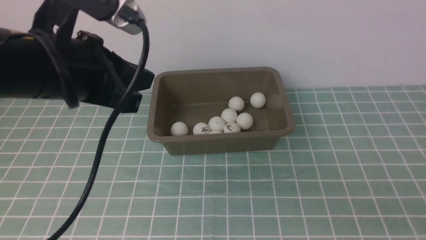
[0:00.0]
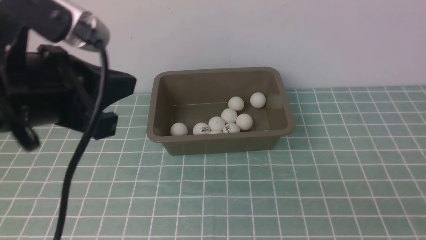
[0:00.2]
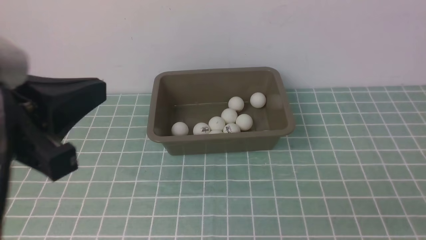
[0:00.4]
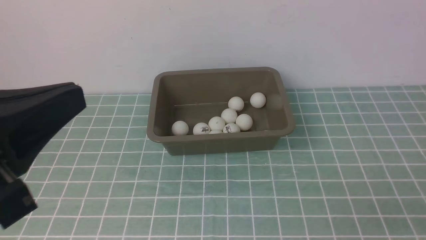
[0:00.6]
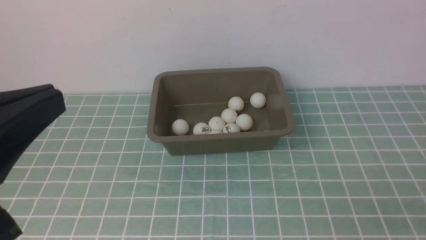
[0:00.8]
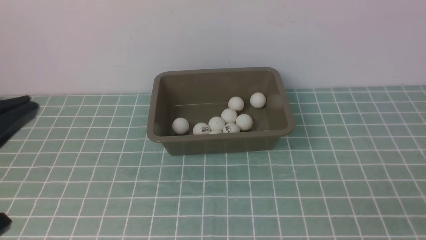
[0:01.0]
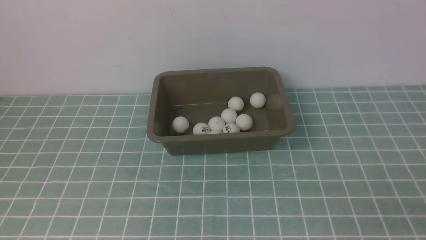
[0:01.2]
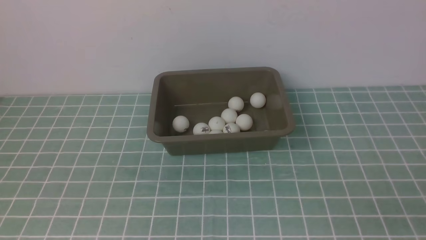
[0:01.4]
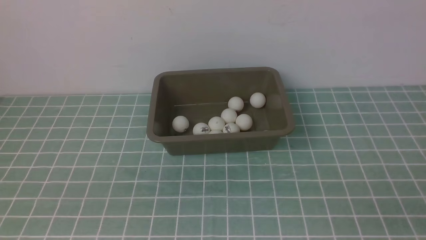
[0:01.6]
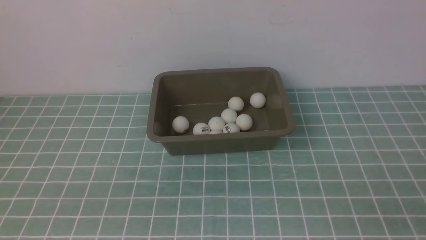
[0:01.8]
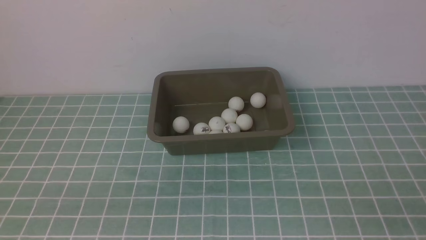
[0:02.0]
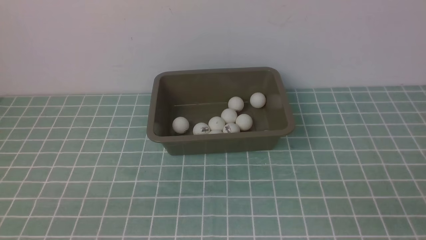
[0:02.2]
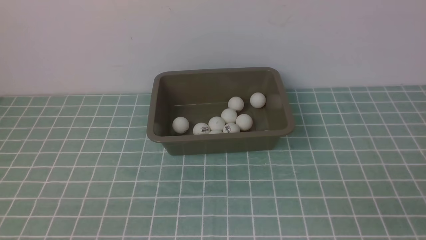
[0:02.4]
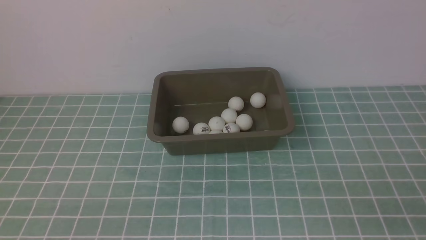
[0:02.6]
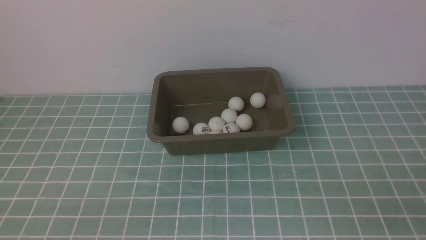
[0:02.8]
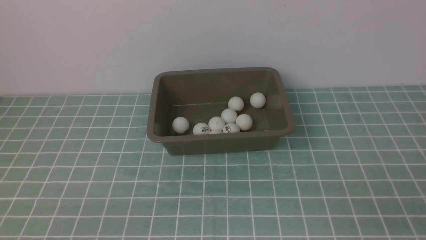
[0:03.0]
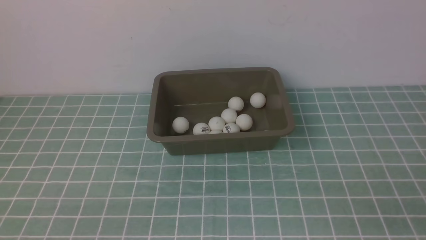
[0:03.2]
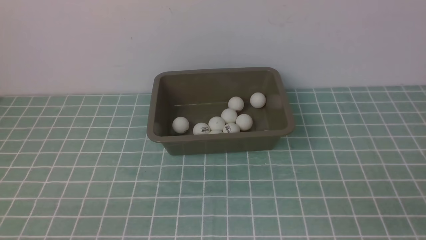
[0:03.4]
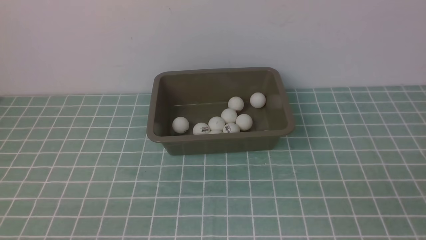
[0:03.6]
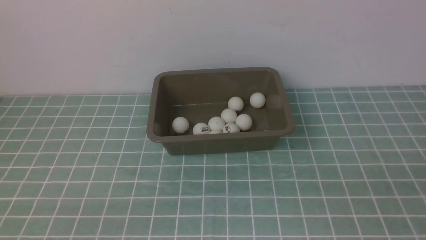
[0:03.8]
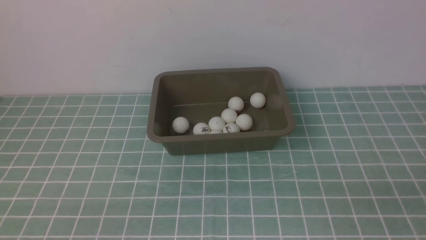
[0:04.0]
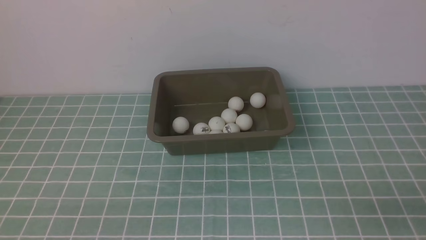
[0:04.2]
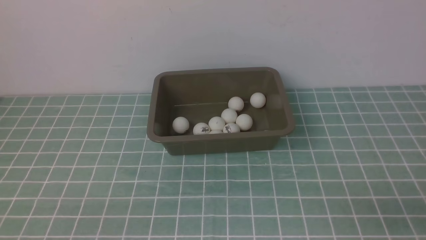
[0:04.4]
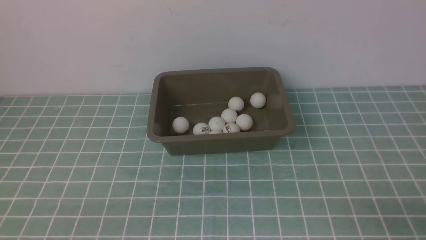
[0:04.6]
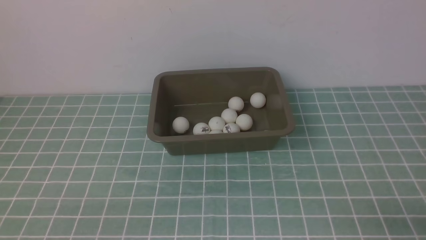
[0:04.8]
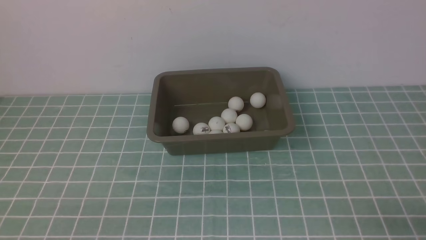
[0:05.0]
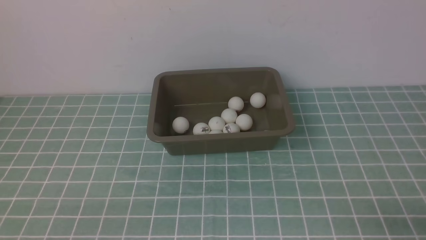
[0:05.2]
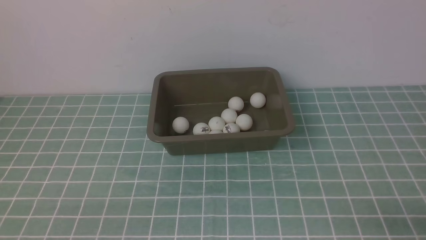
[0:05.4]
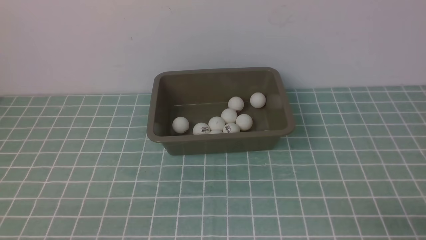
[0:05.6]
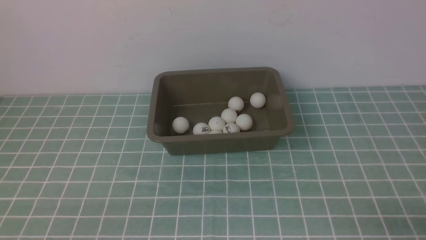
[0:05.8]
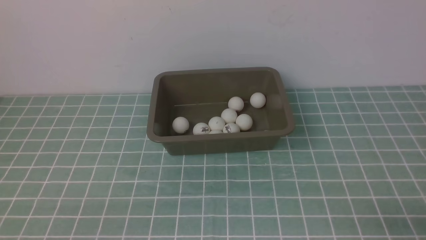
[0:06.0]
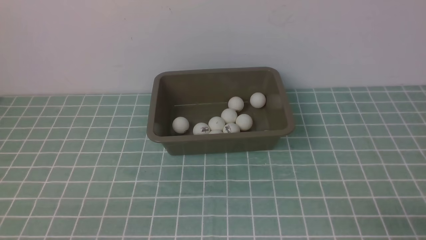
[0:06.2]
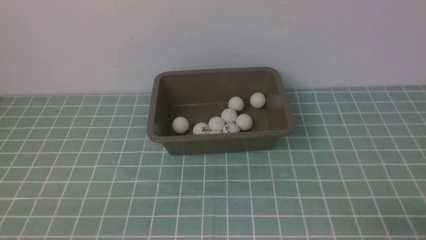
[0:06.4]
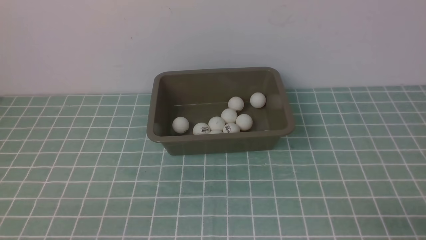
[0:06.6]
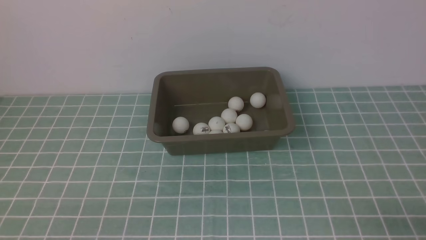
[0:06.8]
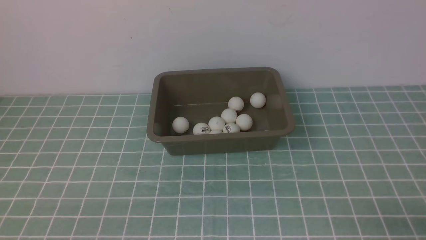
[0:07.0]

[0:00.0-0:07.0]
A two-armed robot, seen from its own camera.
0:00.0 to 0:01.4: The left gripper goes approximately 20 cm backward and to the left.
0:05.6 to 0:07.0: The two grippers keep their place.

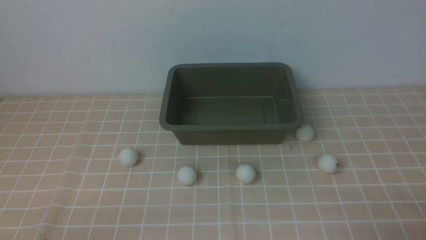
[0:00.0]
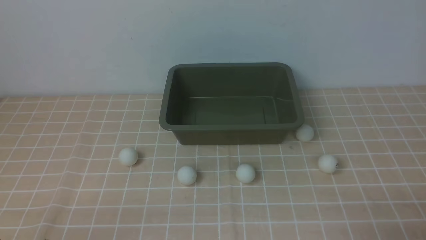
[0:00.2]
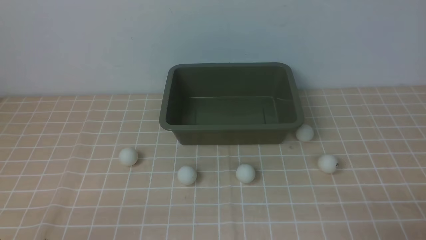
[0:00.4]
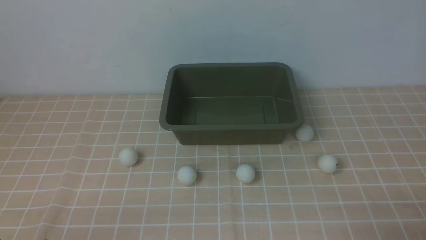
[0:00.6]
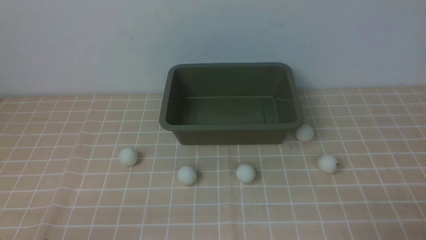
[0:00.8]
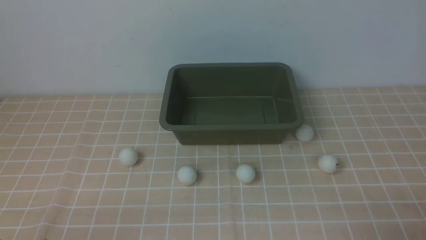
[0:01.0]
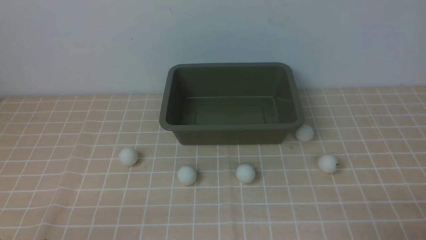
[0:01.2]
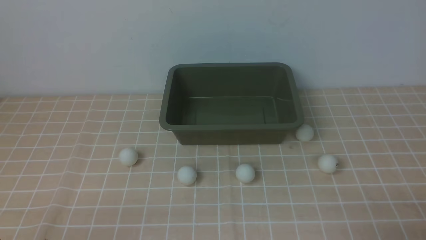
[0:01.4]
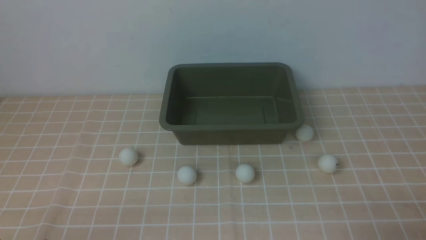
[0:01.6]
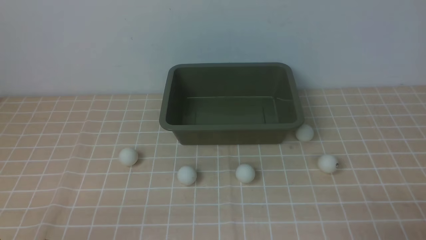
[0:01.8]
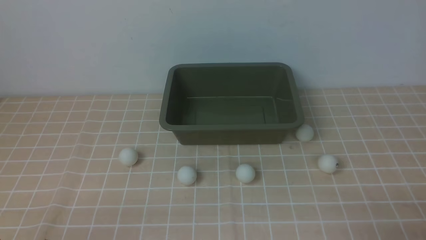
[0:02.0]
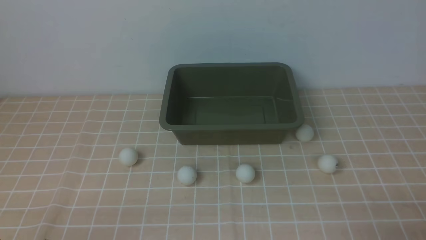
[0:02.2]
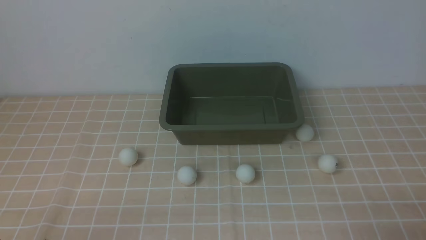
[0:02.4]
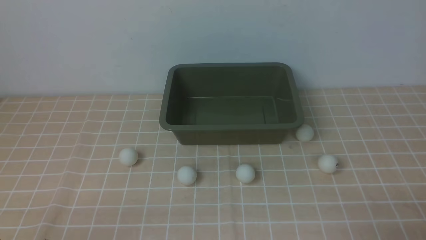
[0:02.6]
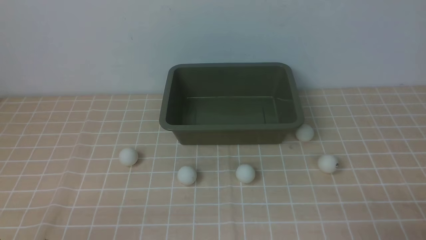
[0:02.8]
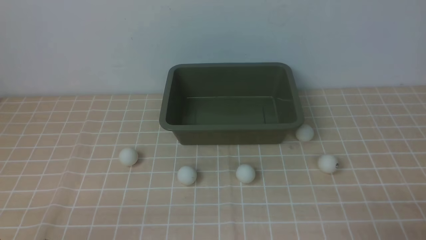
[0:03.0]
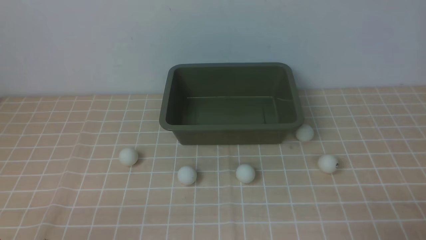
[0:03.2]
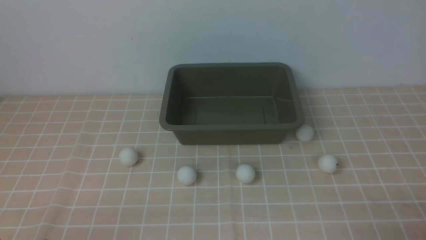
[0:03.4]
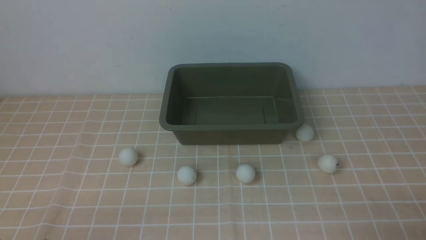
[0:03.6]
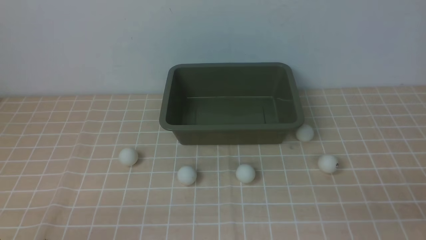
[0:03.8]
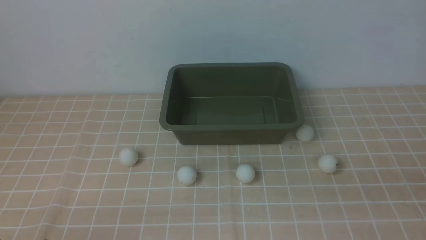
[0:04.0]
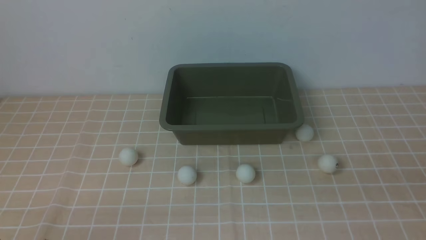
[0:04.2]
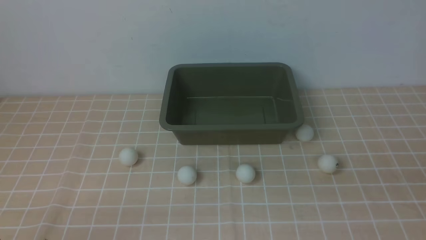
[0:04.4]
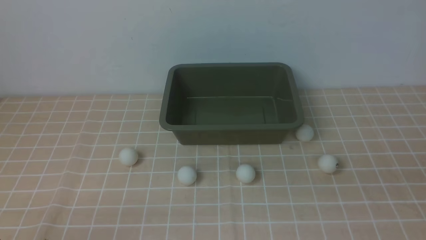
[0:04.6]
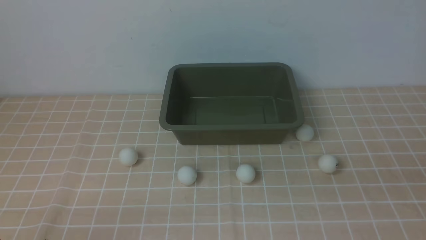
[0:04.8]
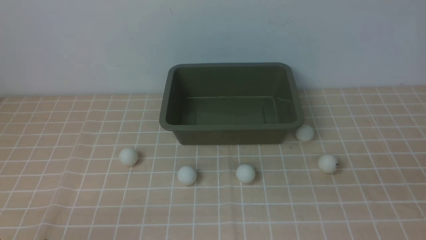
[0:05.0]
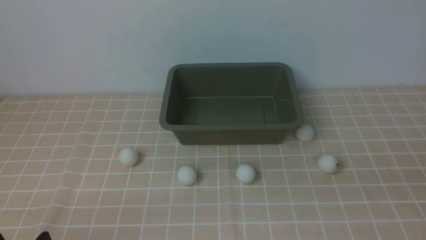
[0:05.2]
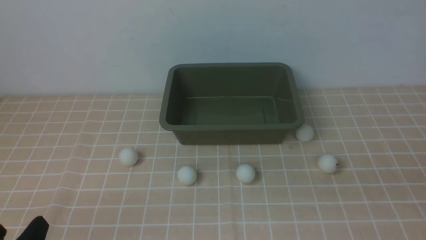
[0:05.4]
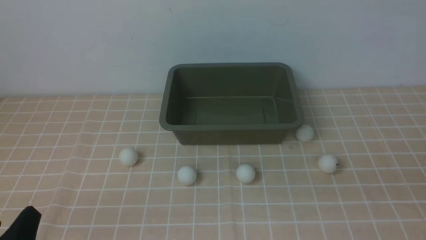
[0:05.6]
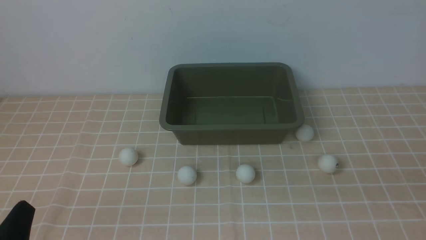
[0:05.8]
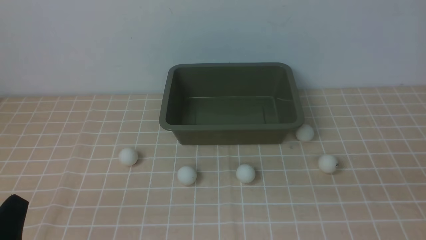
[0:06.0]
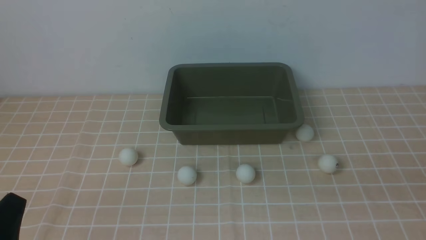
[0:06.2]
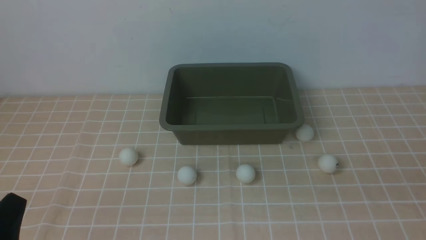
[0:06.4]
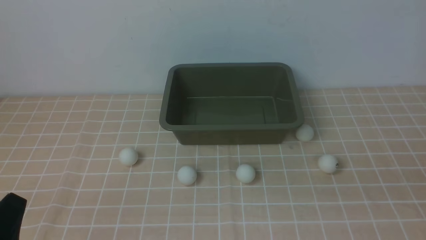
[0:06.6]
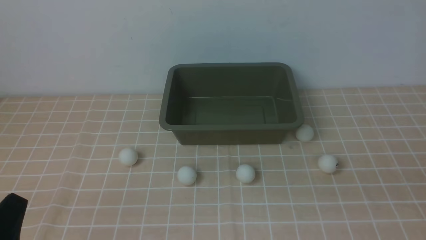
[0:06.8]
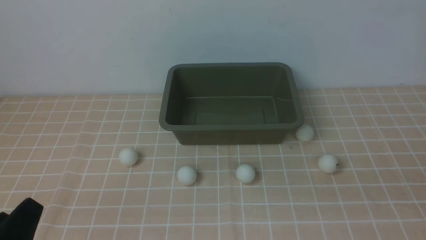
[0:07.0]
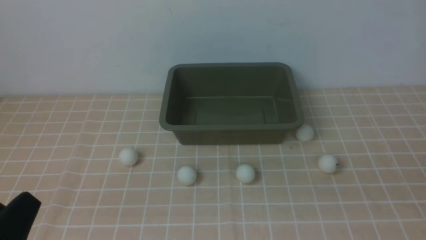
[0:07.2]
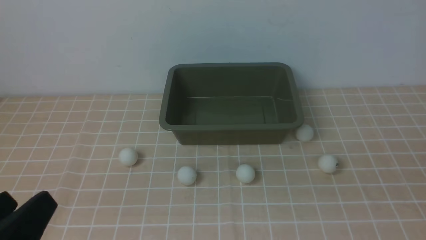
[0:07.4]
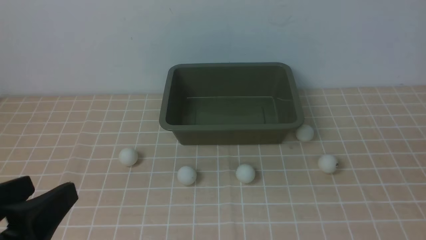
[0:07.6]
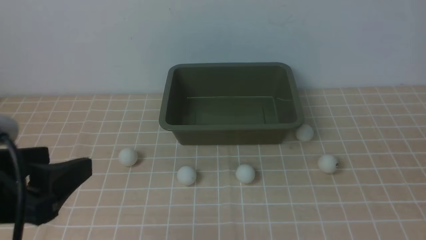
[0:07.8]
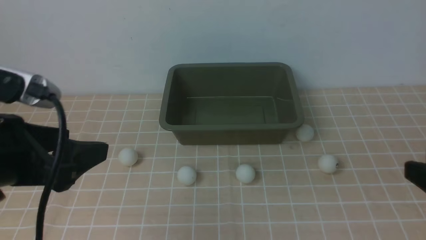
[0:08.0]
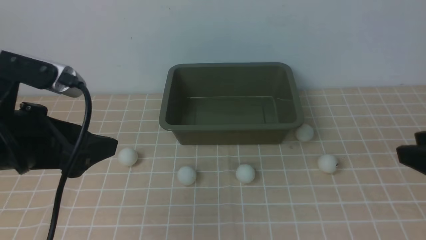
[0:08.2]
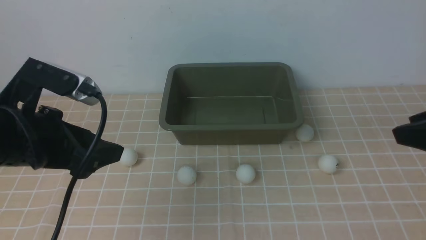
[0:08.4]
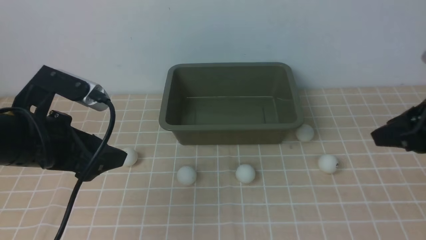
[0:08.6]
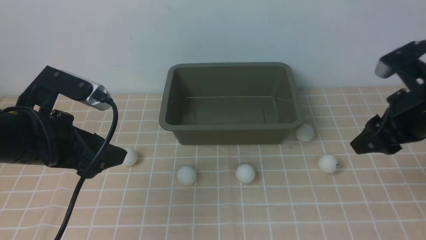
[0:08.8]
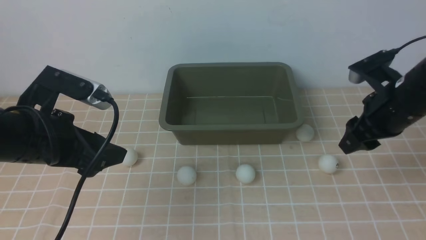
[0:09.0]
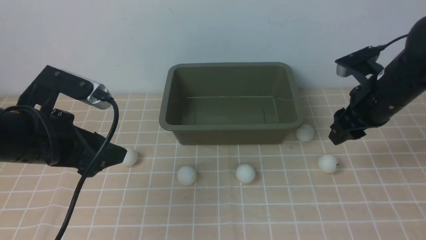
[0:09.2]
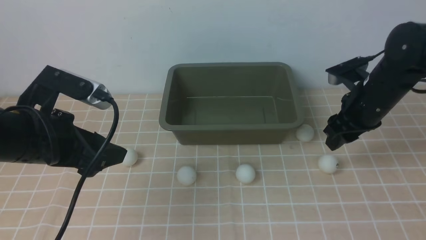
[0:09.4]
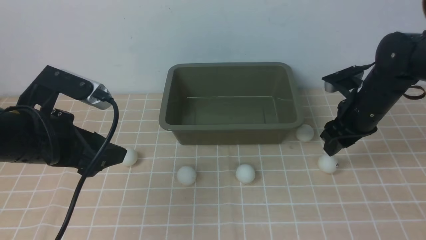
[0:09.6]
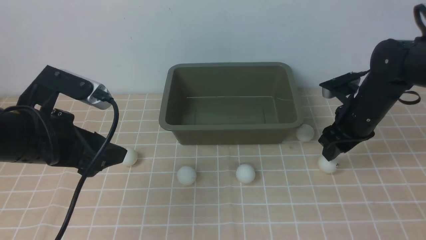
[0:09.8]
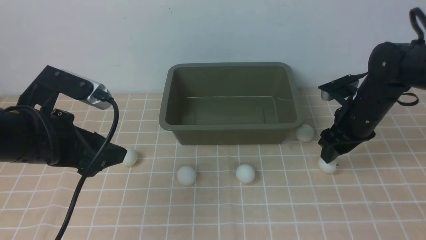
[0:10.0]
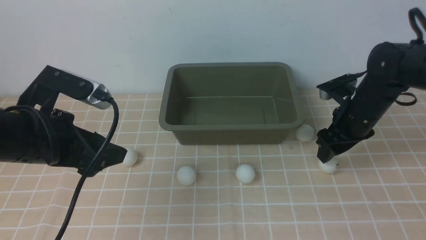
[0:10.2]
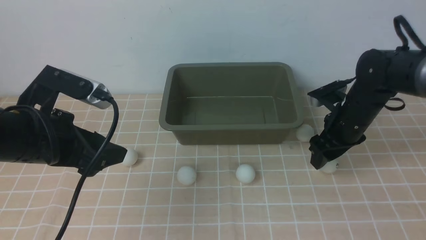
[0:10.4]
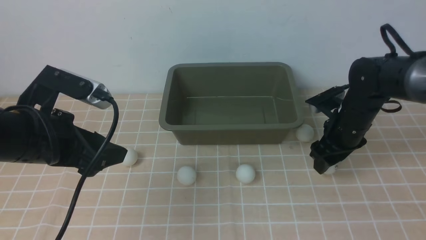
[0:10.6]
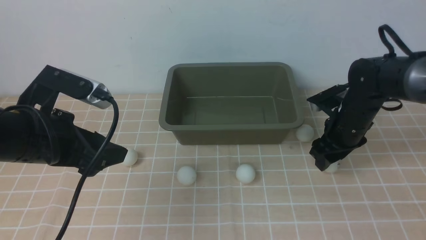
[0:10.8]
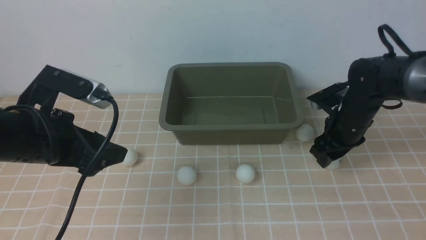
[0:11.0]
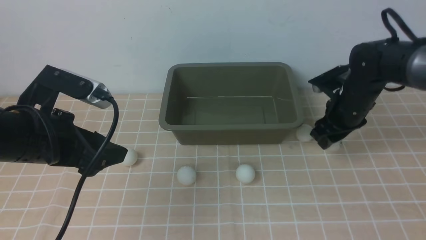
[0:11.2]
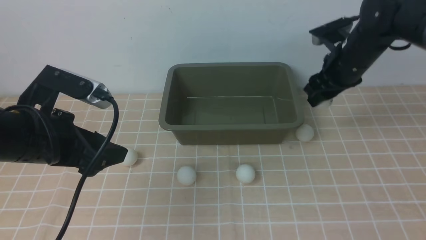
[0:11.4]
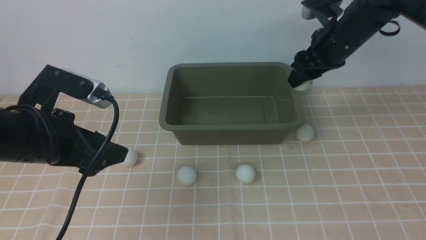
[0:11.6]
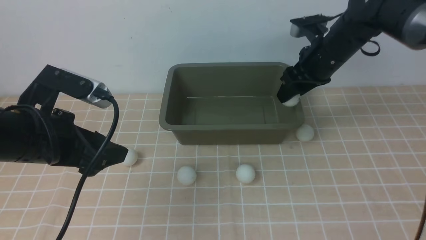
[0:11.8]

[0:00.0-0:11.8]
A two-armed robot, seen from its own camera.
Step, 0:00.0 to 0:11.2: use the right arm to clamp the table tennis ball closest to it.
0:00.0 to 0:03.0: Both grippers stay put.
0:06.0 to 0:07.4: The left gripper travels upward by approximately 10 cm.
0:07.4 to 0:08.8: Both grippers move forward, roughly 20 cm.
0:08.8 to 0:10.4: The right gripper travels downward and forward by about 15 cm, and opens.
0:10.4 to 0:11.8: The right gripper goes about 10 cm upward and forward, and closes up.
